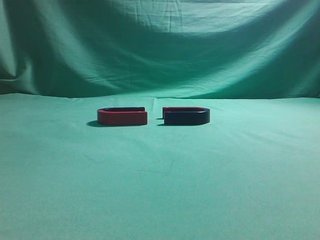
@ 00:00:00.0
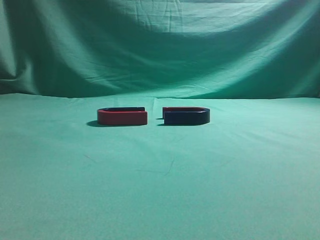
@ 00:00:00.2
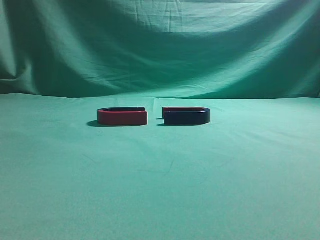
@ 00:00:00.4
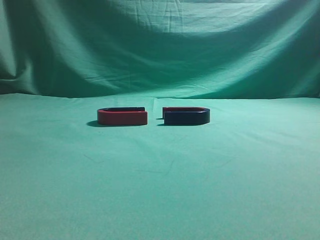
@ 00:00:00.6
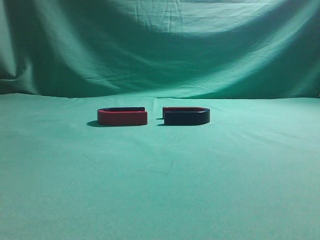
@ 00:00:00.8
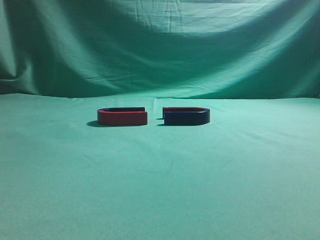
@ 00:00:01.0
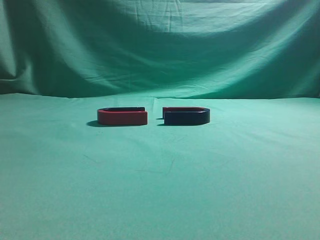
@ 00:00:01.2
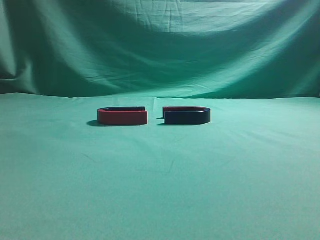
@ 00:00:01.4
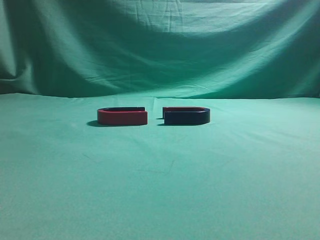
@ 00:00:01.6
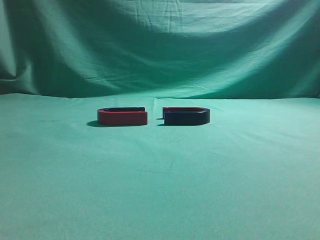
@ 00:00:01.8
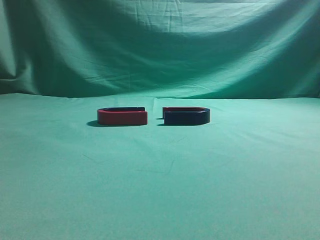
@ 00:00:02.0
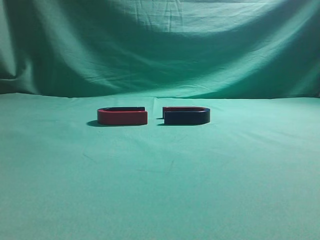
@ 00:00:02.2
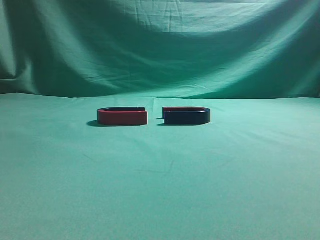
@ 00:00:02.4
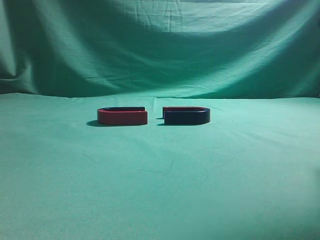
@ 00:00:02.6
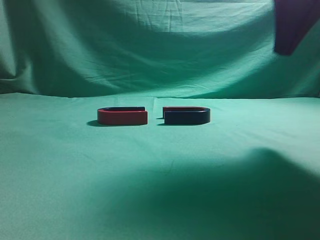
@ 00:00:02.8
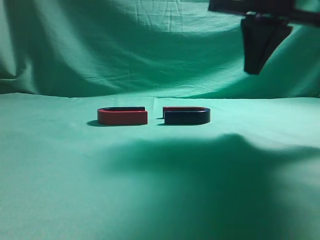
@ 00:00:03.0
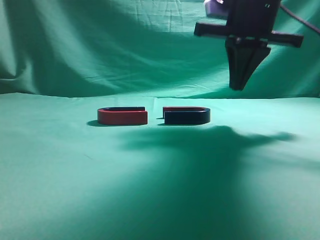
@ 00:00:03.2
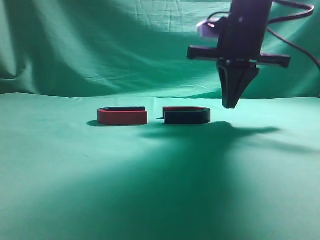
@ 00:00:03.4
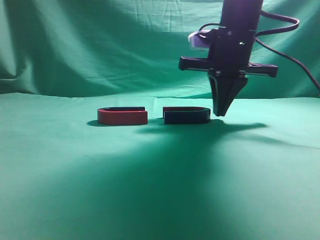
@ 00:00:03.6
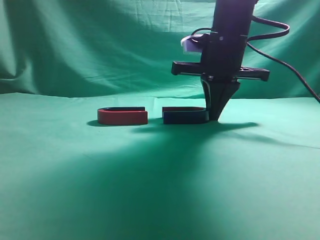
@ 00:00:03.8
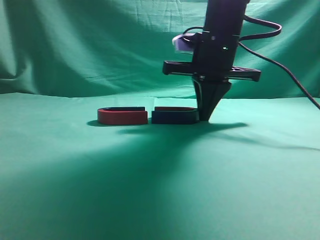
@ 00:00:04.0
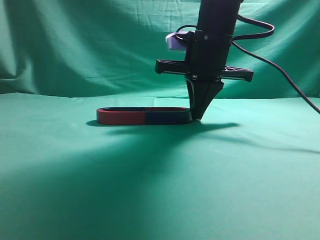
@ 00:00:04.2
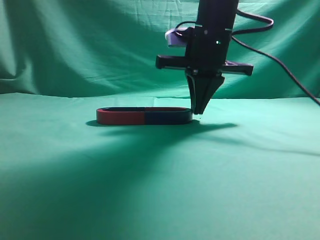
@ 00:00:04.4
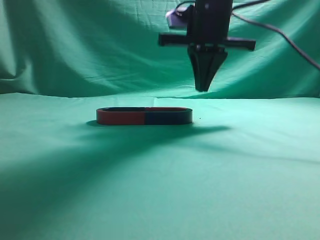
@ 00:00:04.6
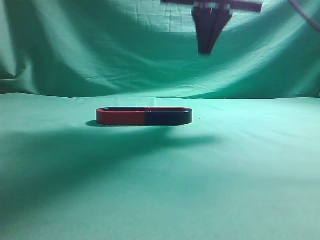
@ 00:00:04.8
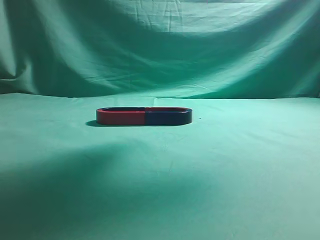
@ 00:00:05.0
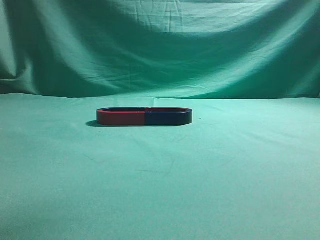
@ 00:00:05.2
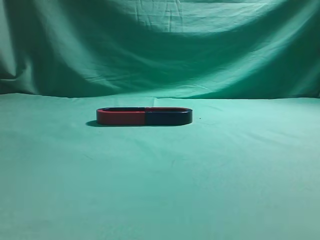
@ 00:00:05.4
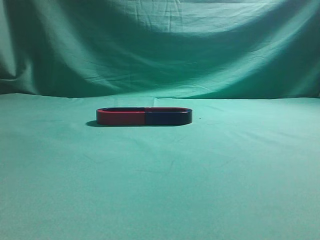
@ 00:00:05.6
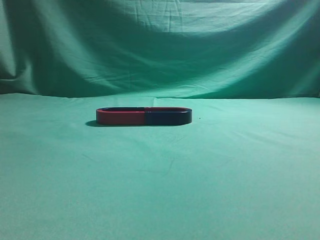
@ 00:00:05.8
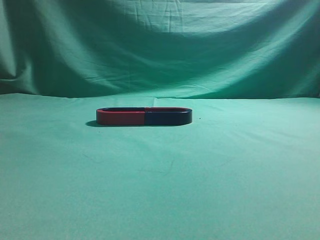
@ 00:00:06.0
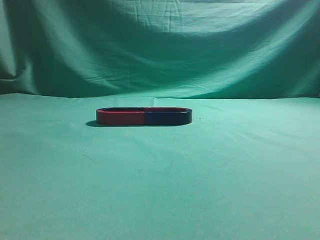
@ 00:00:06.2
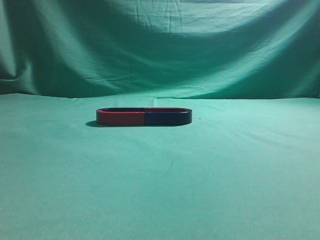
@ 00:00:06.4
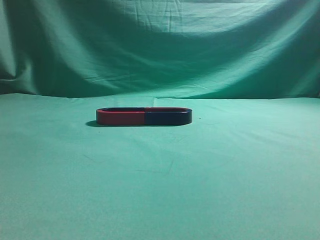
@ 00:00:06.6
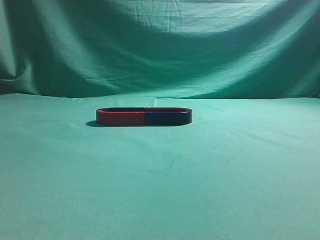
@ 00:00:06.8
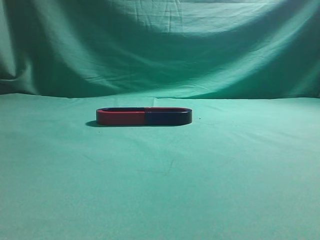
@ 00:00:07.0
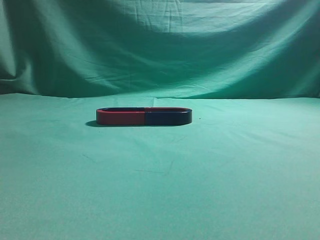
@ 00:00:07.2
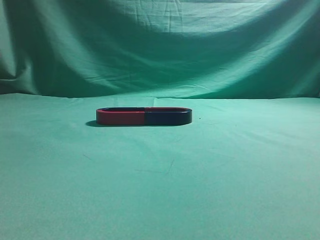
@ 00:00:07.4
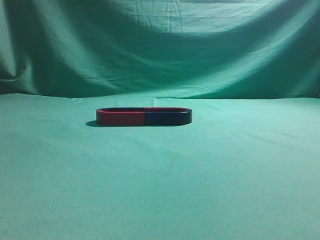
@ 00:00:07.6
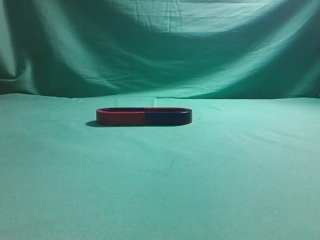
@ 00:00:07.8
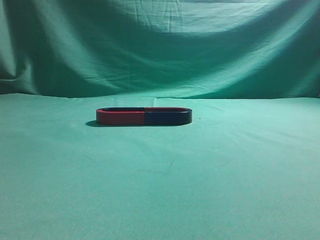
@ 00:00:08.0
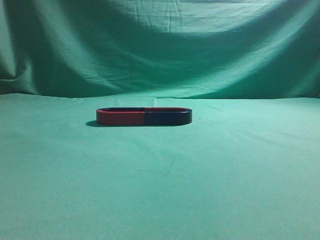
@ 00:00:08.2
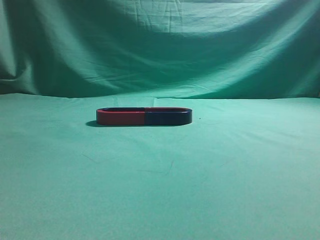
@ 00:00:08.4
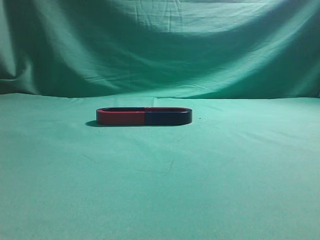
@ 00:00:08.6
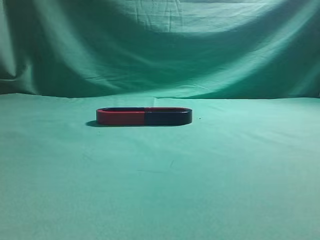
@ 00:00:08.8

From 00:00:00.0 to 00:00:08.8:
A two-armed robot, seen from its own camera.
Task of the whole recording: push the magnet on the table from its original position to another position.
Step, from 00:00:00.0 to 00:00:04.4: Push the magnet on the right to connect the magnet on the left.
From 00:00:01.4 to 00:00:03.0: The right gripper shifts about 30 cm forward and to the left.
From 00:00:03.0 to 00:00:04.4: The right gripper heads to the left, forward and downward, covering about 10 cm.
From 00:00:04.4 to 00:00:05.8: The right gripper goes about 35 cm backward, upward and to the right.
